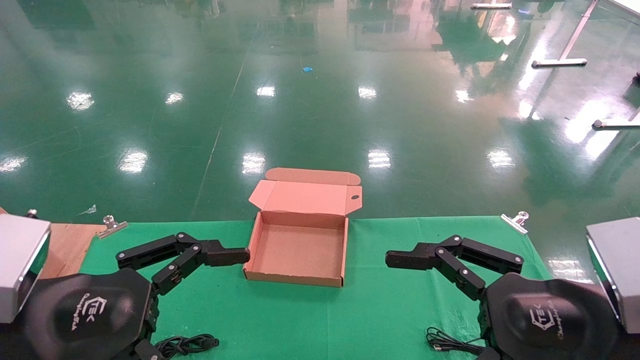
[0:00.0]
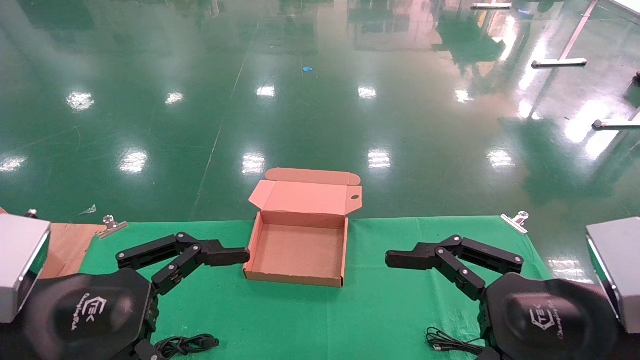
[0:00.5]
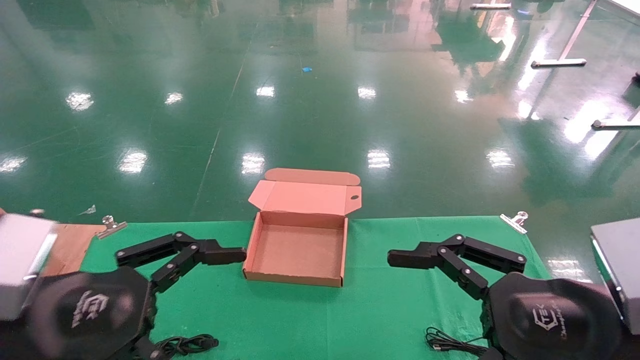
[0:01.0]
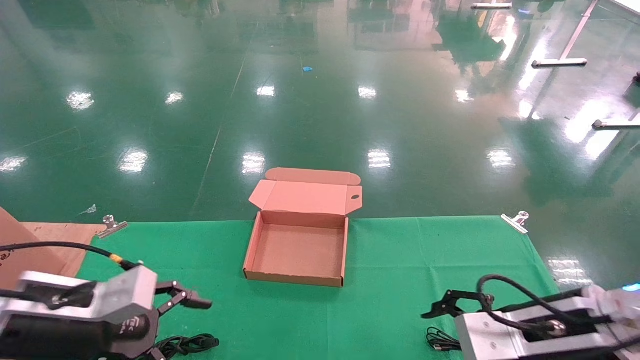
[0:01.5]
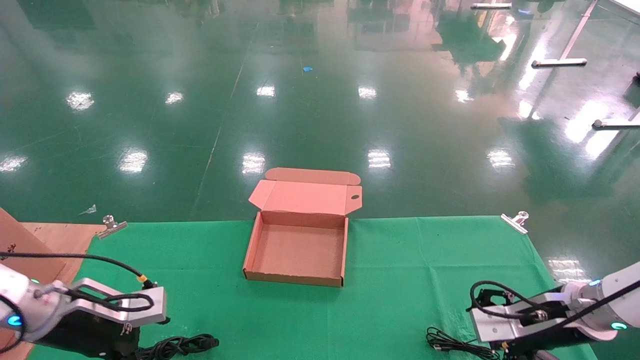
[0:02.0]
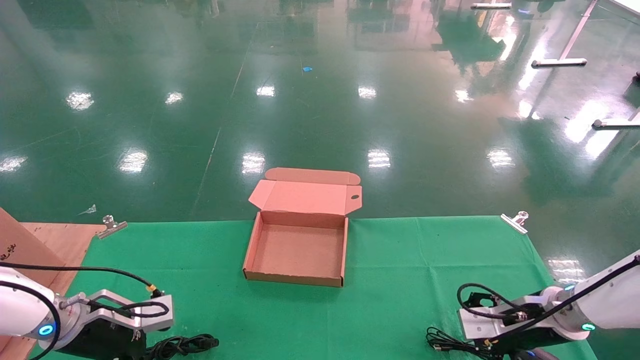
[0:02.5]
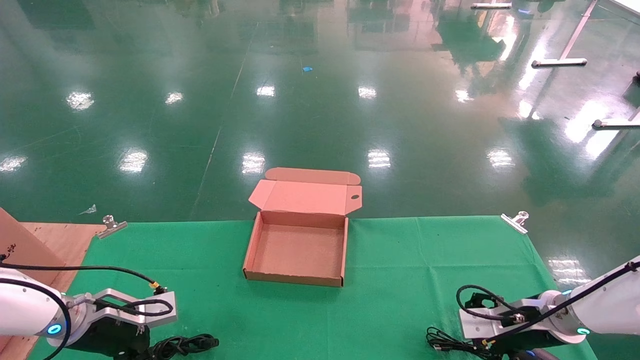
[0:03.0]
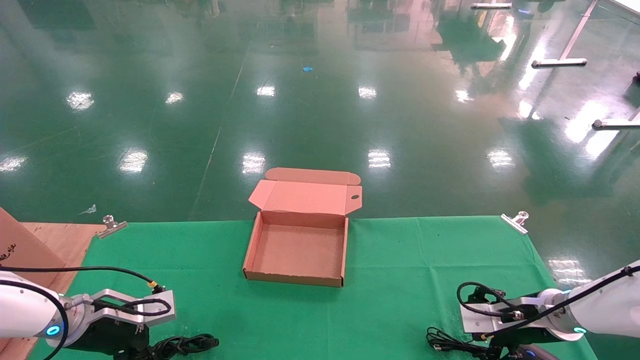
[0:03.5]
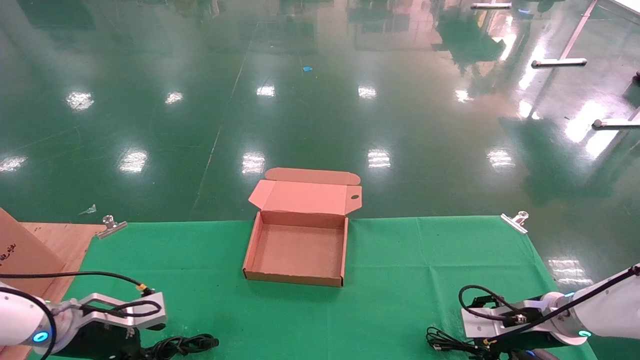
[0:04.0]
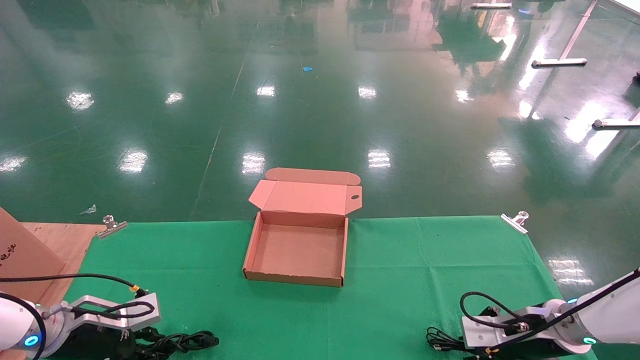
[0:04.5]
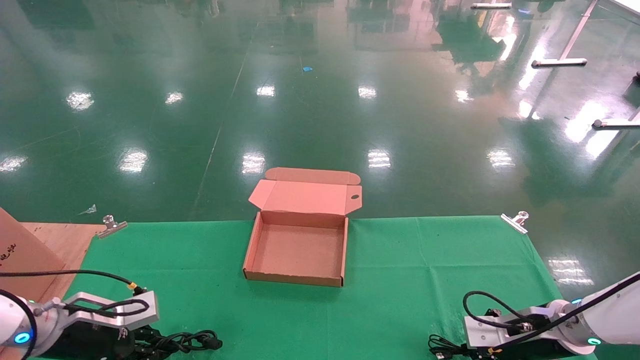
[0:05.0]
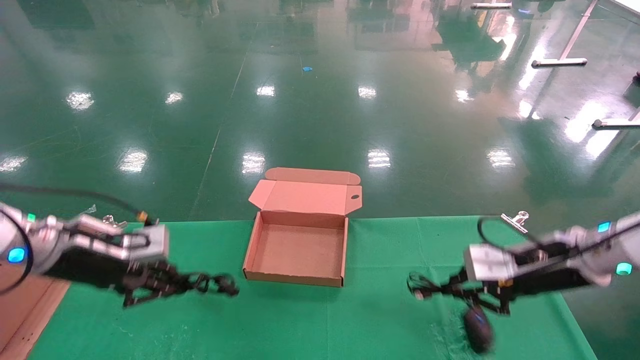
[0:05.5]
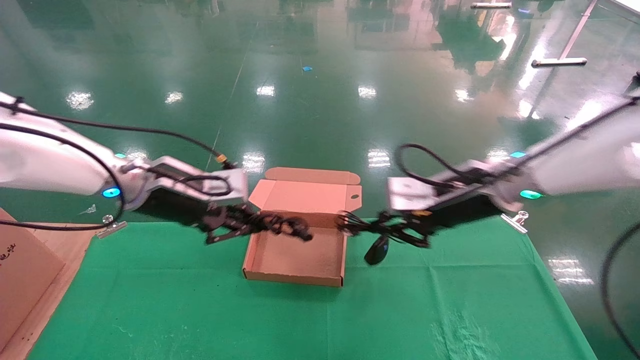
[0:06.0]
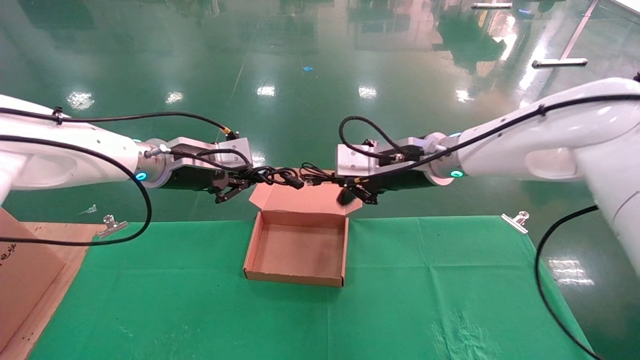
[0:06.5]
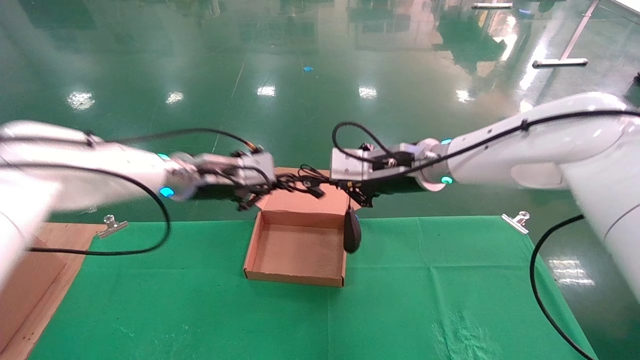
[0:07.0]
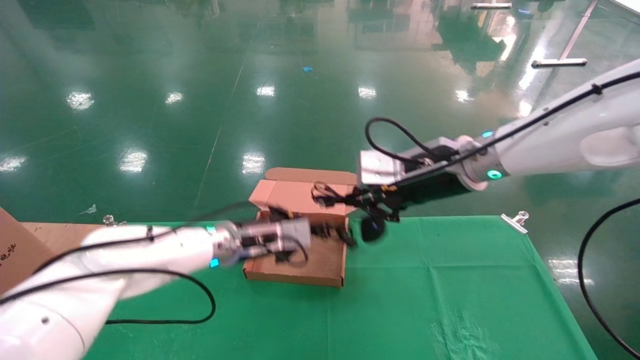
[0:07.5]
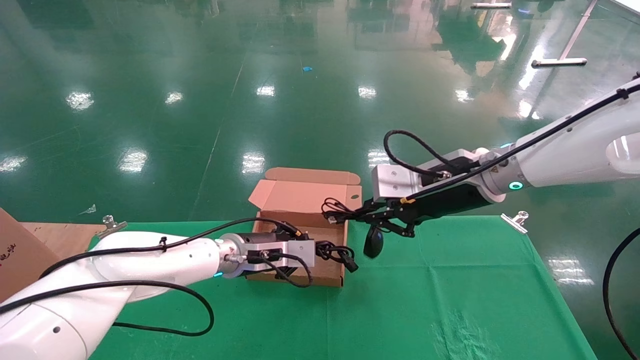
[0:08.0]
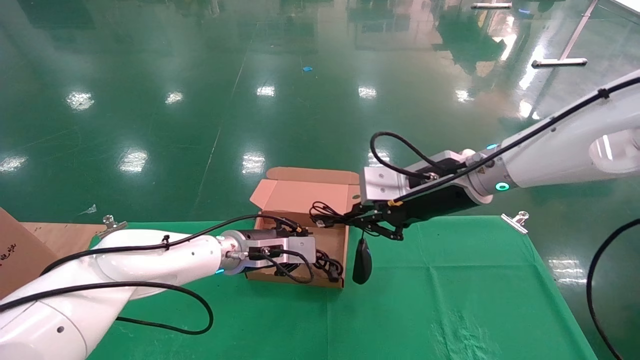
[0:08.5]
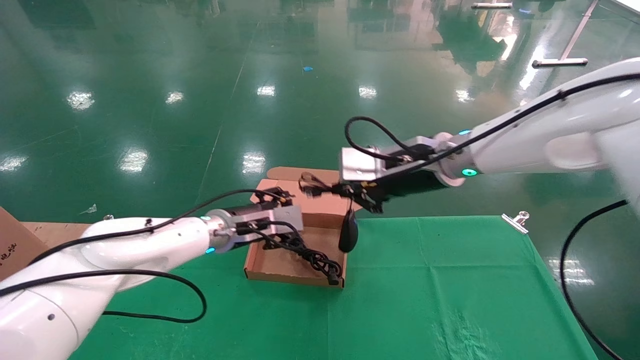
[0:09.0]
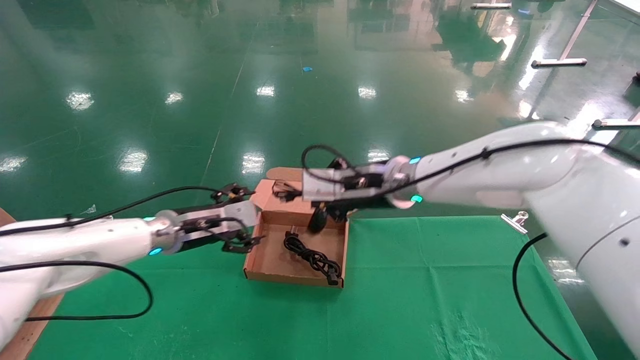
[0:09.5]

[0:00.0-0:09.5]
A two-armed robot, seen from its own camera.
Step, 0:02.0 to 0:05.0: Grab and lift both the mouse and power cord from the accessory packaging area at the same time.
0:00.0 to 0:02.0: The left gripper moves forward, downward and to the left, roughly 20 cm. The right gripper shifts approximately 20 cm forward and downward.
0:02.0 to 0:04.0: The right gripper is displaced downward by roughly 5 cm, while the left gripper shifts by approximately 5 cm.
0:04.0 to 0:05.5: Both grippers travel together upward, approximately 15 cm. The right gripper closes its fingers; the left gripper closes.
0:05.5 to 0:07.5: The right gripper goes roughly 20 cm to the left and upward; the left gripper moves to the right and forward, about 20 cm.
0:07.5 to 0:09.5: The two grippers go about 10 cm to the left. The left gripper opens.

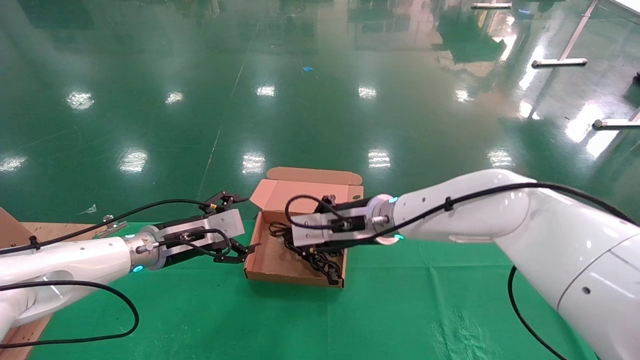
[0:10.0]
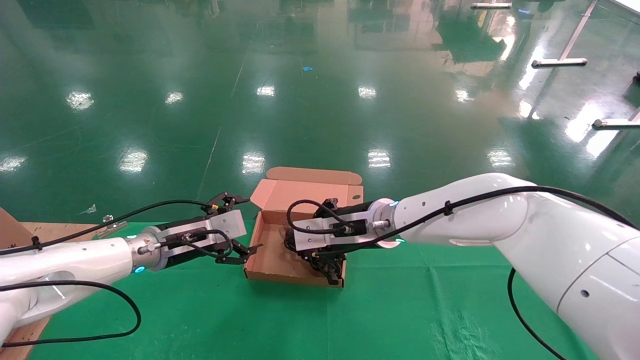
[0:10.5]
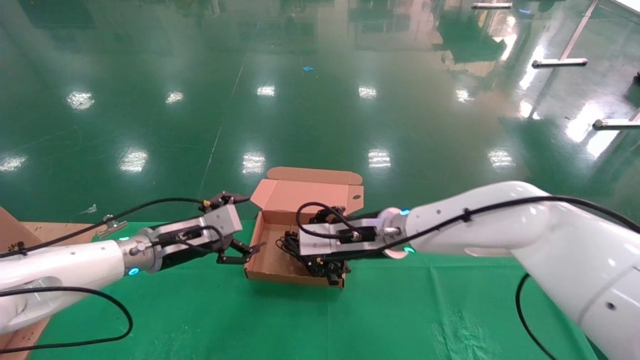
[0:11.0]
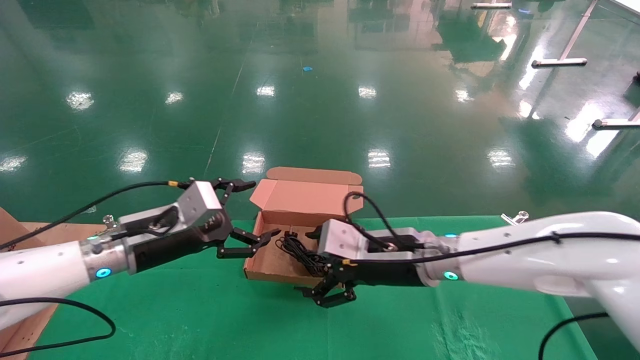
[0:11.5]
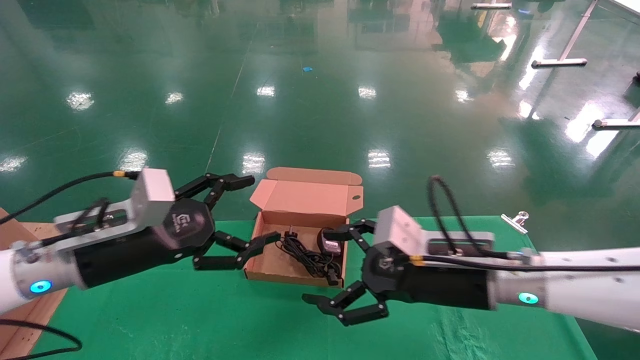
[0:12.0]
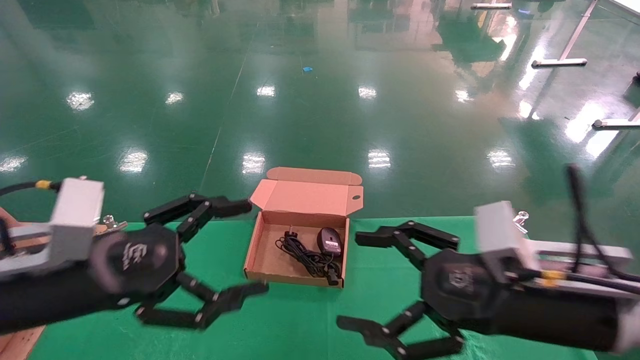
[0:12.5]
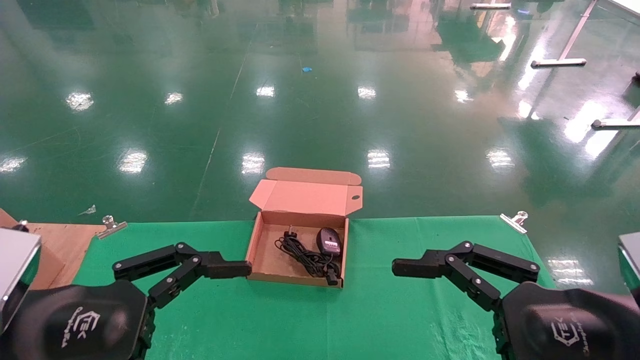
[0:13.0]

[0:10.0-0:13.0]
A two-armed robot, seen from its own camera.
0:10.0 to 0:11.5: The left gripper is displaced backward by some 5 cm; the right gripper moves backward and to the right, roughly 10 cm, and opens its fingers.
0:11.5 to 0:13.0: The right gripper travels backward and to the right by some 25 cm; the left gripper is displaced backward by roughly 20 cm.

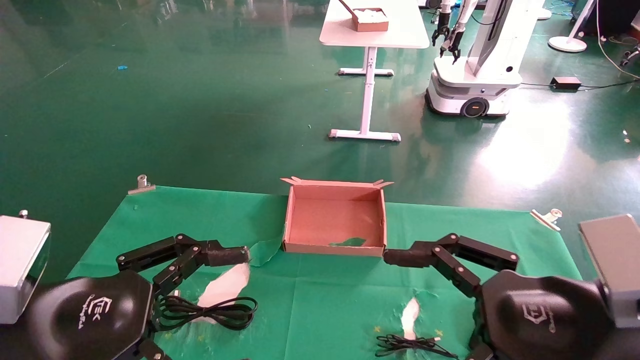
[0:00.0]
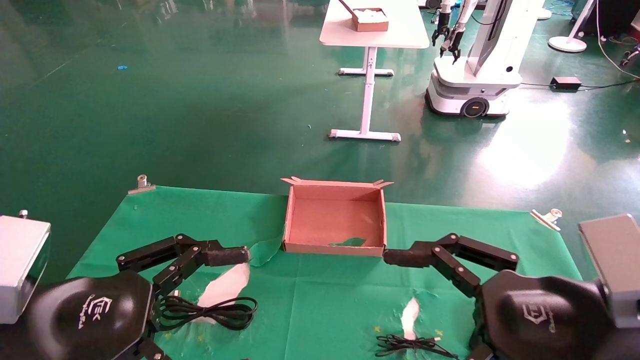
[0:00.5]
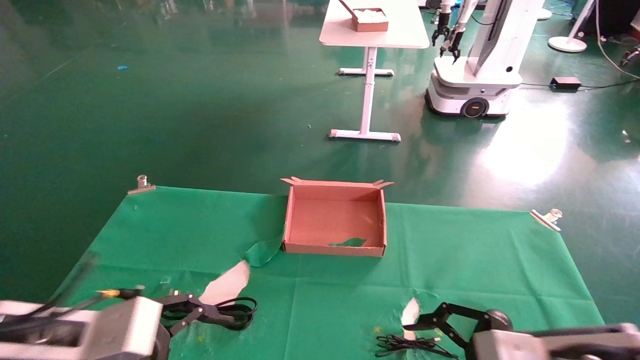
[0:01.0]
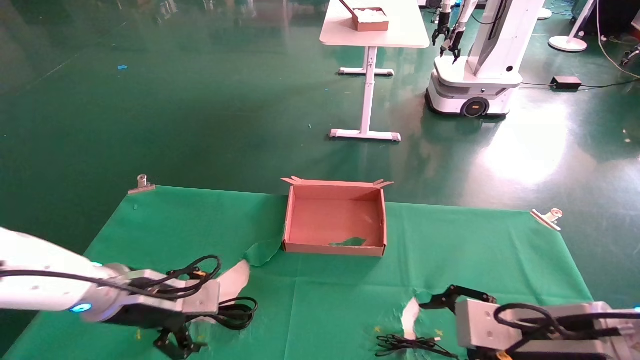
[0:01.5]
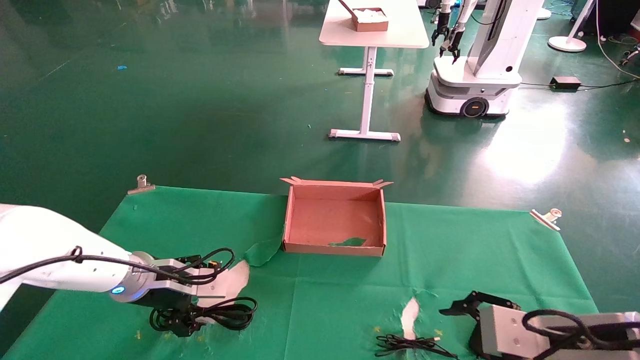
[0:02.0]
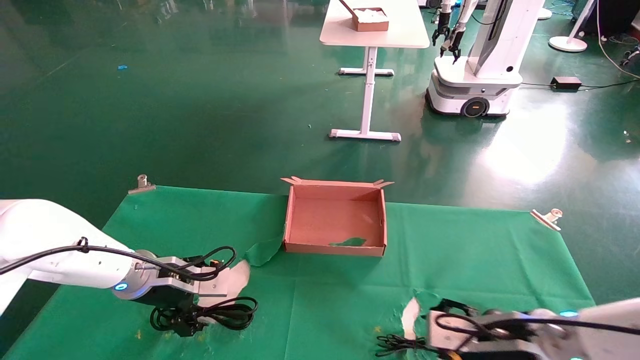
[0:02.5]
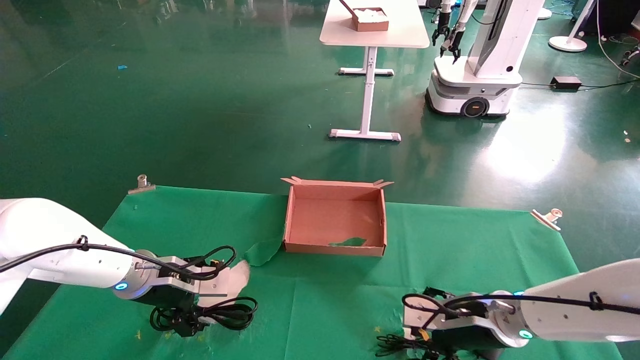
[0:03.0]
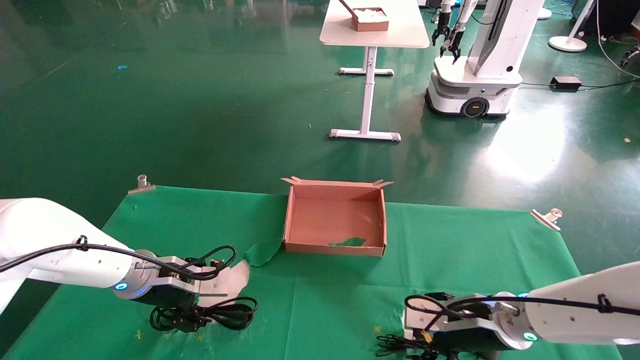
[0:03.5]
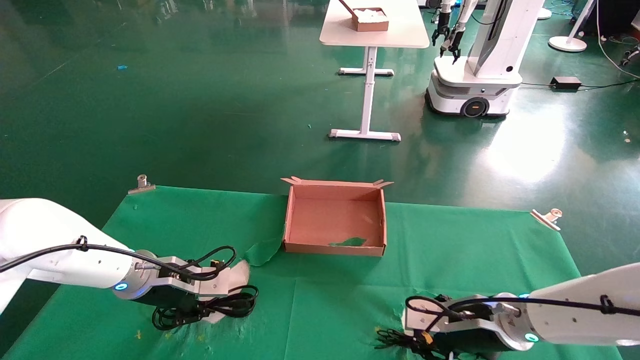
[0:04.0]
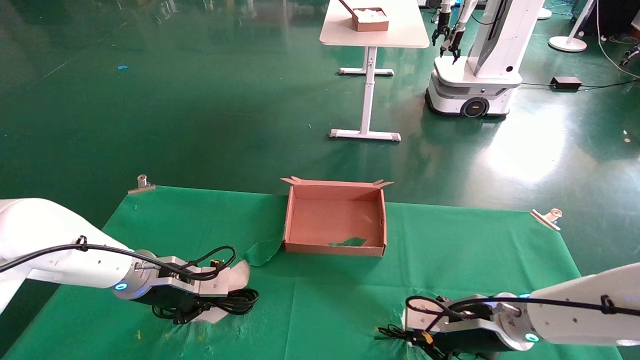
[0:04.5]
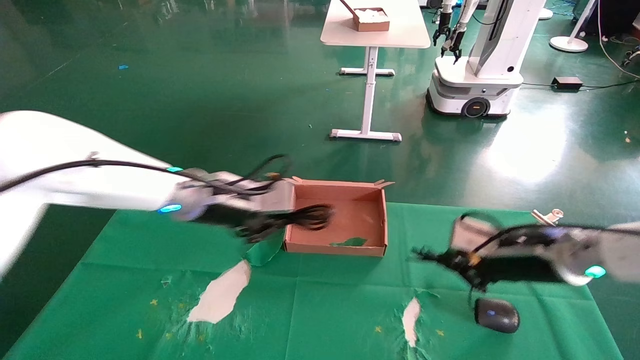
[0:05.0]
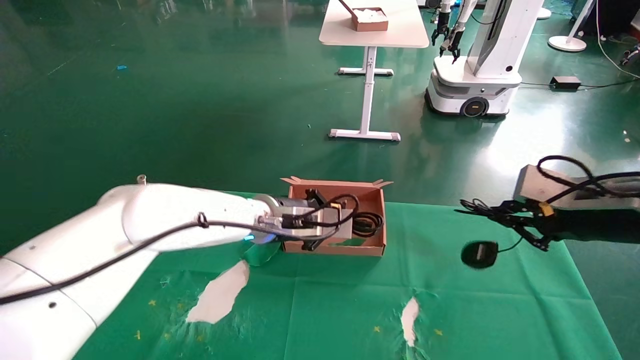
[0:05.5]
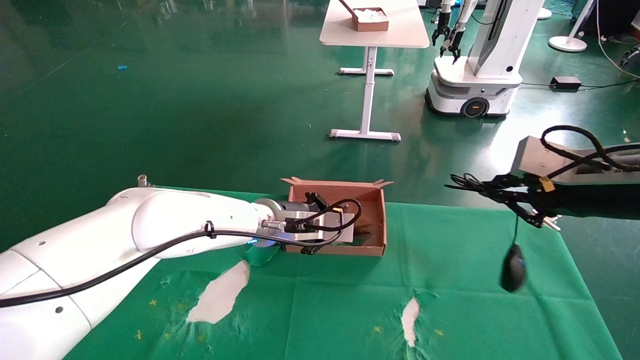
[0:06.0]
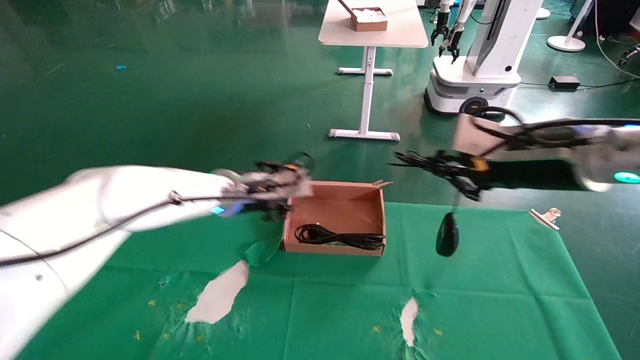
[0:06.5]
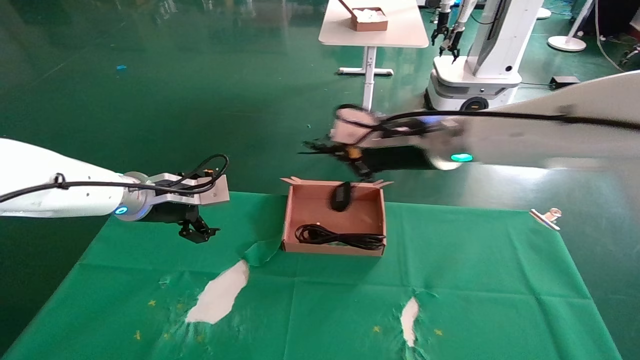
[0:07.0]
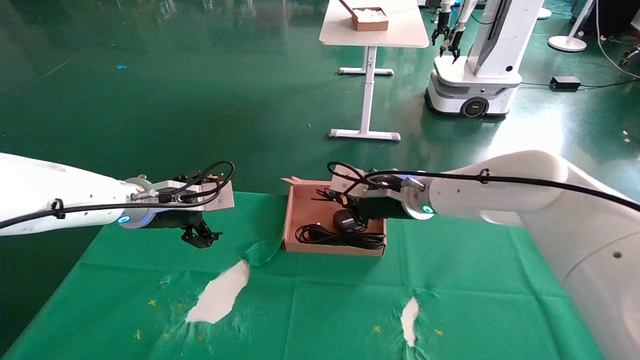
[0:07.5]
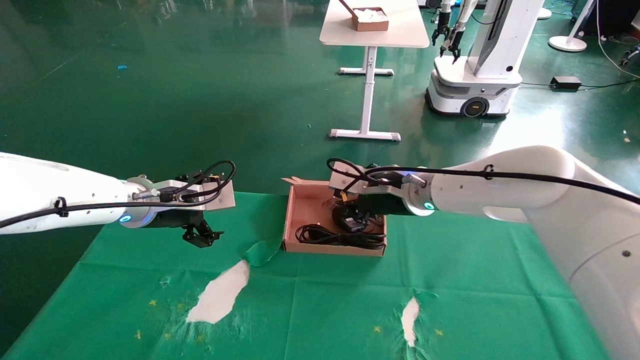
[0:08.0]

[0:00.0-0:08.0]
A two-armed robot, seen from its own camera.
Step, 0:01.5 to 0:04.5: Grab and lift both the mouse and power cord from the accessory packaging area at the same time.
0:00.0 to 0:02.0: The left gripper shifts about 25 cm forward. The right gripper shifts approximately 10 cm downward and forward.
0:02.0 to 0:04.0: The right gripper travels forward, to the left and downward by about 15 cm, and closes its fingers, while the left gripper closes its fingers.
0:04.0 to 0:06.0: The left gripper goes some 20 cm to the right. Meanwhile the right gripper heads upward and to the right, covering approximately 25 cm, and closes up.
0:06.0 to 0:08.0: The right gripper heads to the left and forward, covering approximately 25 cm. The left gripper goes approximately 20 cm to the left, and opens up.
